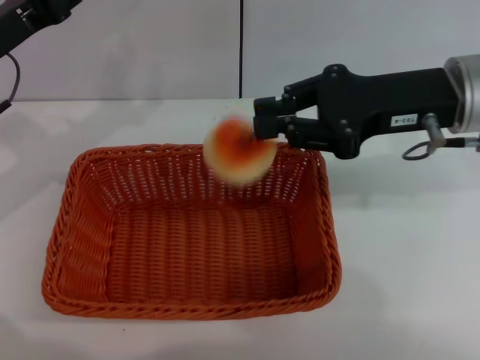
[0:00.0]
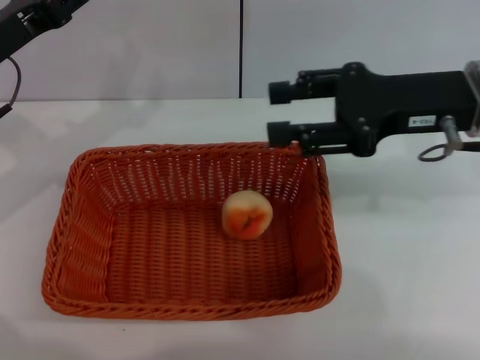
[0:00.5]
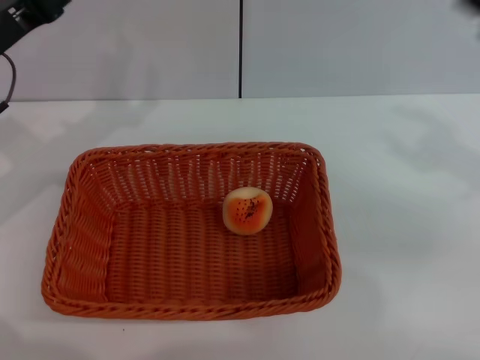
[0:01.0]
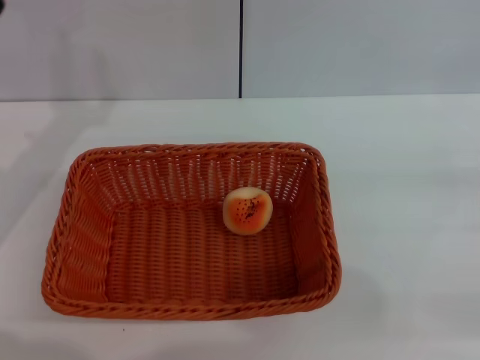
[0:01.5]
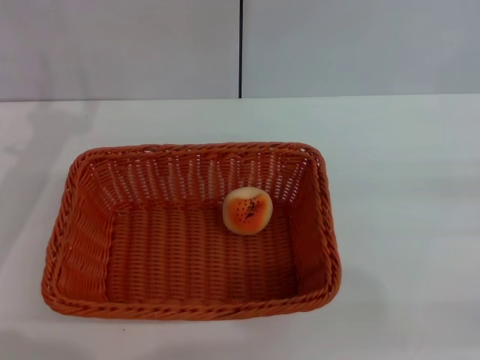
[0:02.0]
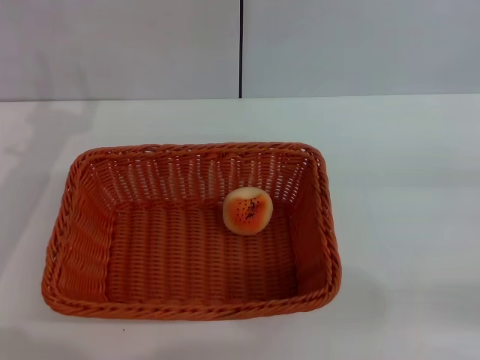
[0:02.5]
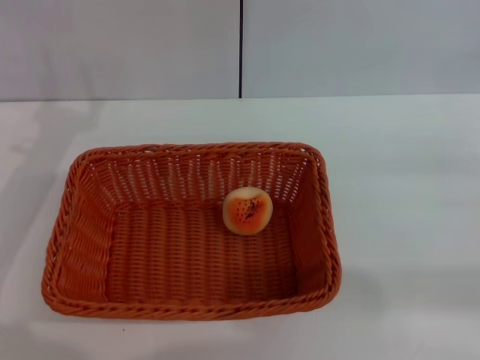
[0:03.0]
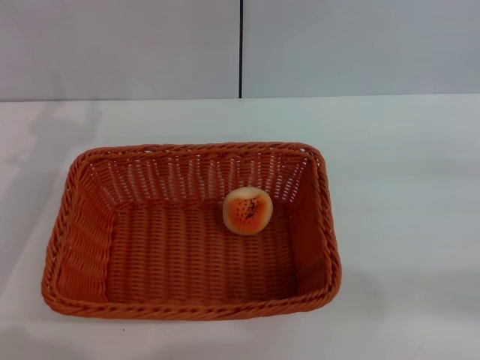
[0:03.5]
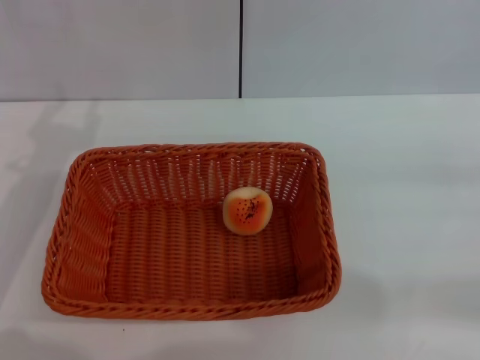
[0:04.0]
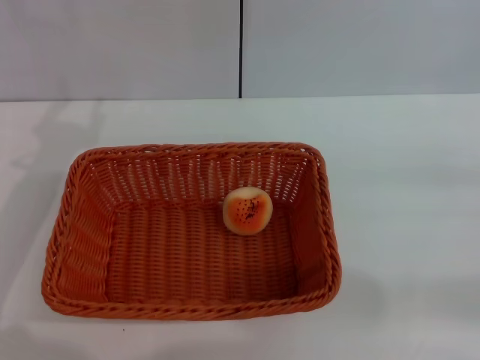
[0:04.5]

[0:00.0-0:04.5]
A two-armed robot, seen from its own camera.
0:00.0 to 0:02.0: The left gripper shifts by roughly 5 cm. The right gripper heads to the right and backward, covering roughly 25 cm, and opens its fingers.

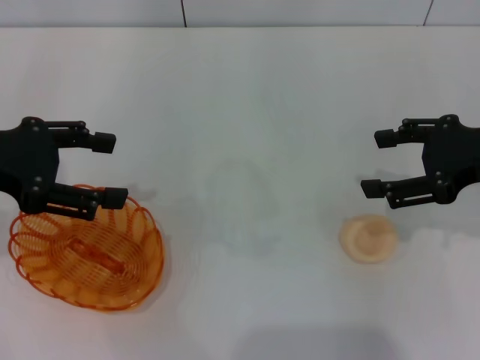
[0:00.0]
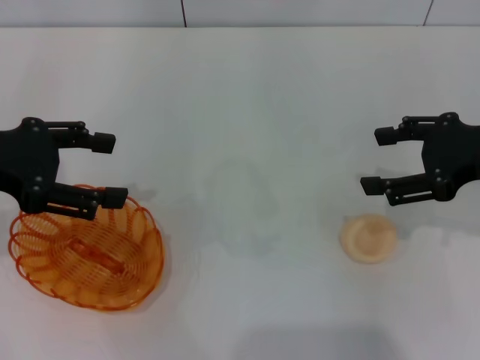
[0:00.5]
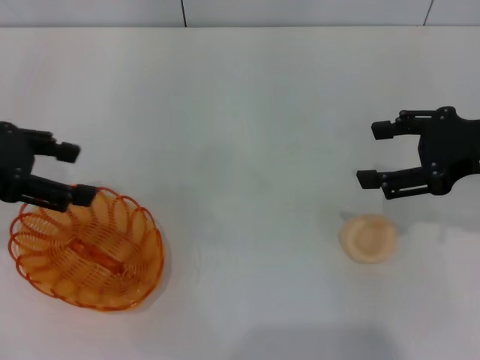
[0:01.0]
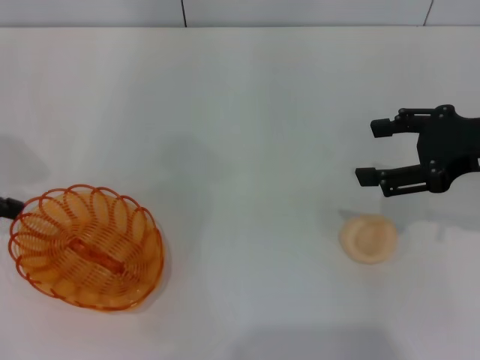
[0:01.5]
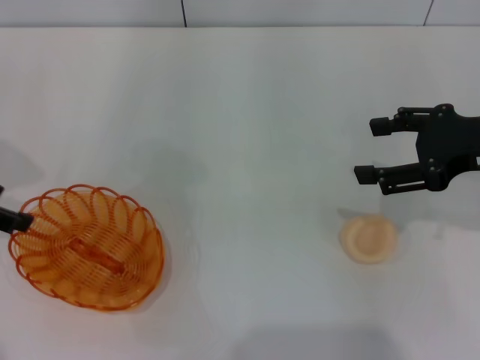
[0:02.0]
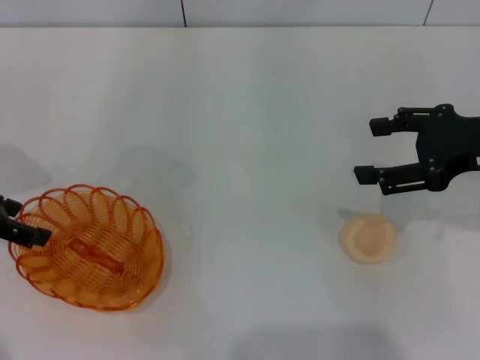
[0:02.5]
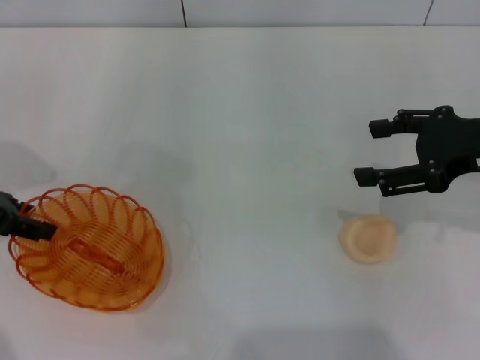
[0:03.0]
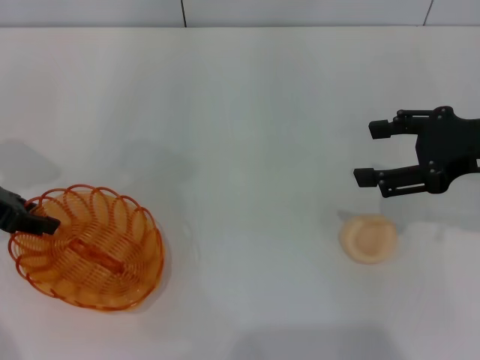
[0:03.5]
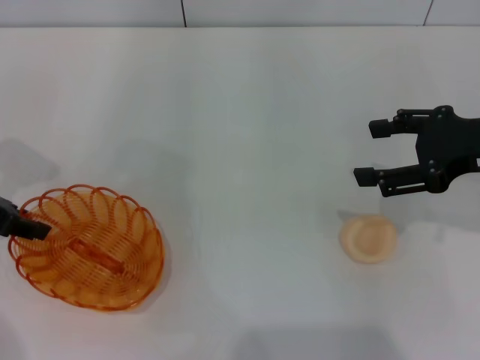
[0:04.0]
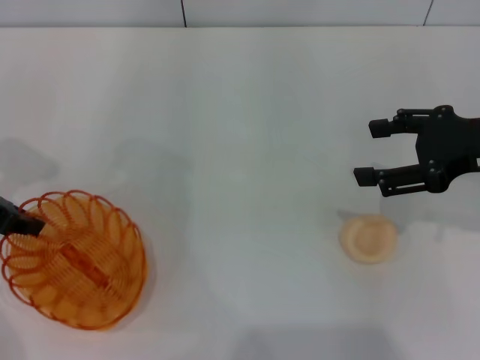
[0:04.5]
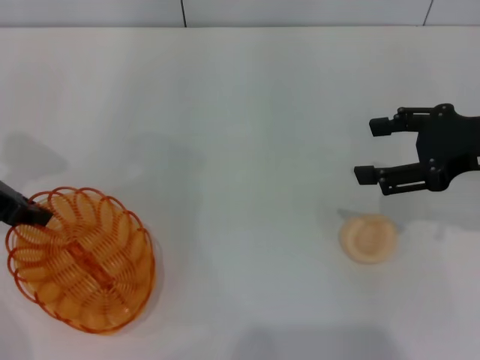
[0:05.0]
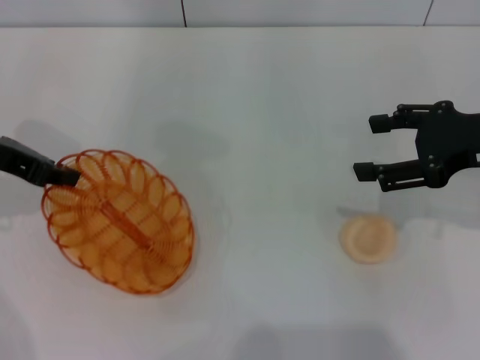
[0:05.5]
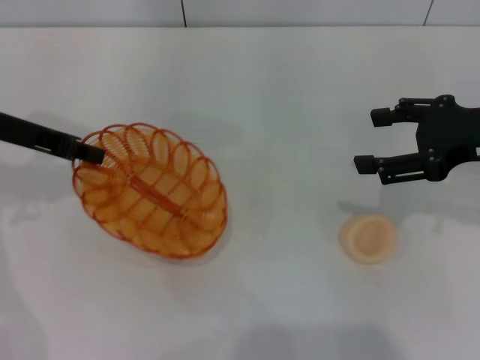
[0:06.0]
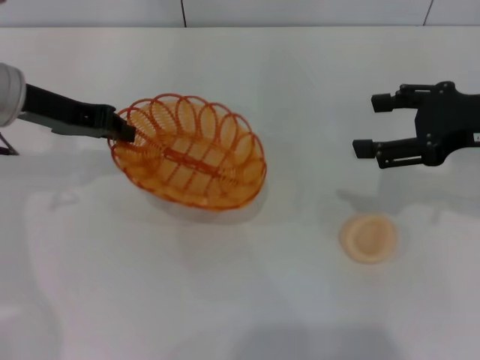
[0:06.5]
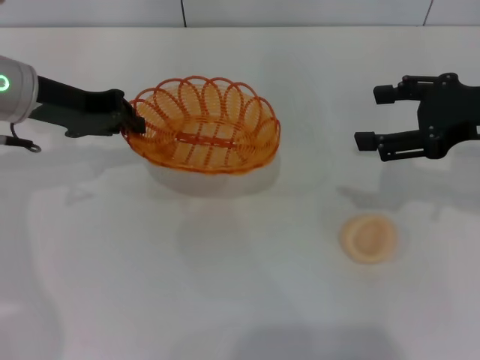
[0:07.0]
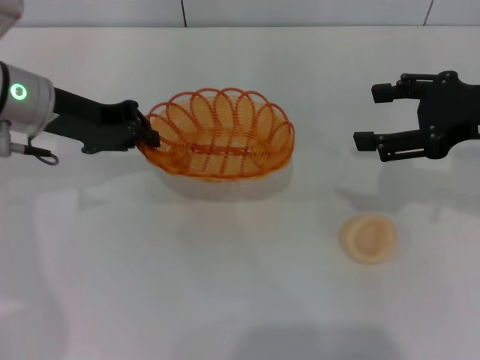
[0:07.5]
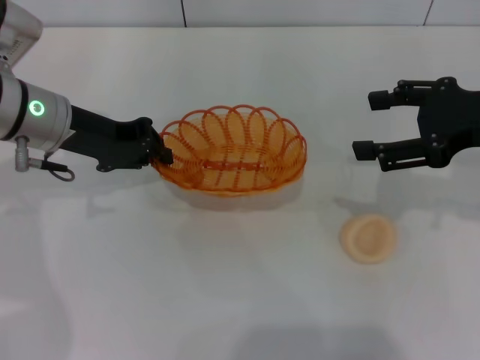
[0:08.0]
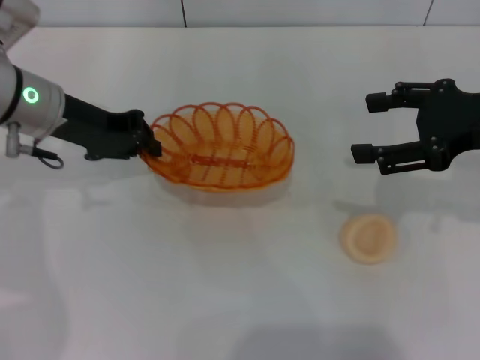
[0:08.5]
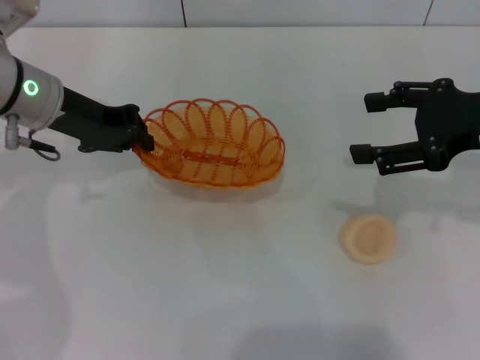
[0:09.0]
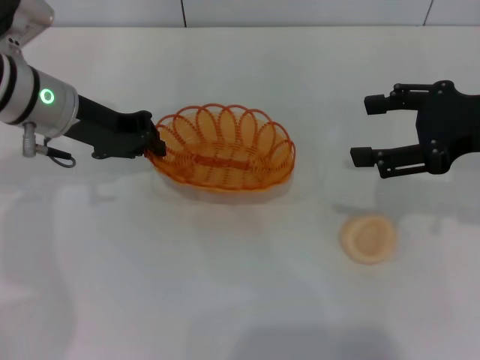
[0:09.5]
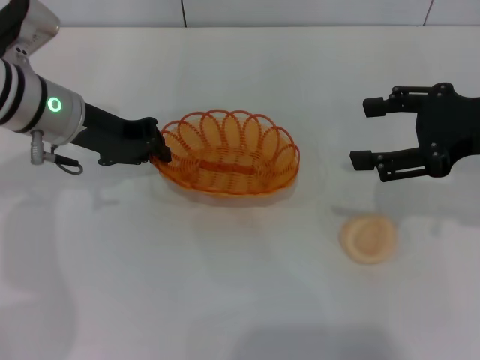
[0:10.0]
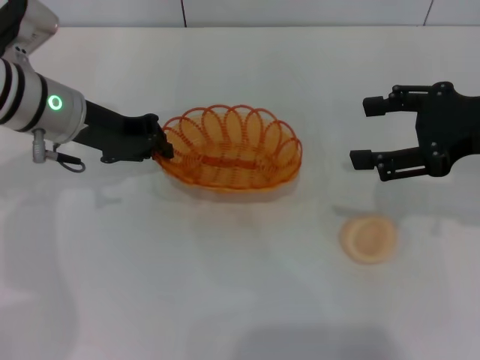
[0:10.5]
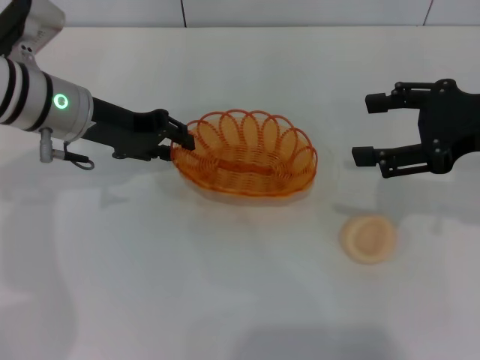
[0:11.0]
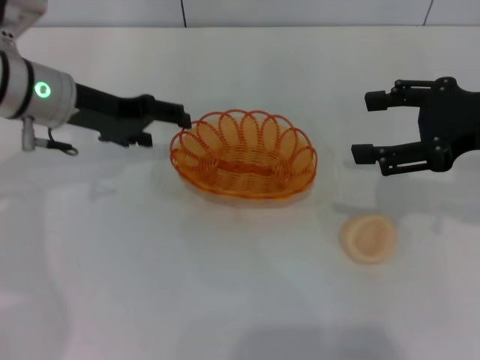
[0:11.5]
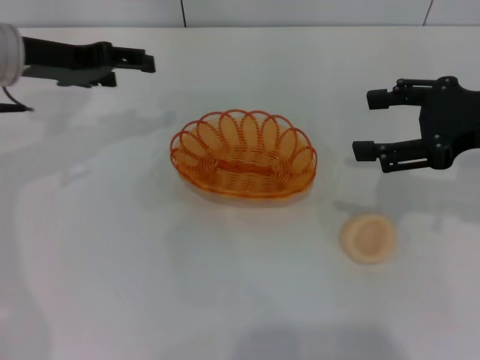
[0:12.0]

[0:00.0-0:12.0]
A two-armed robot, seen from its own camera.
Step, 0:00.0 to 0:05.0: Pick up the basket with the left gripper.
Step, 0:05.5 to 0:11.5: Place the basket in the center of view with the left gripper.
0:00.0 to 0:02.0: The left gripper ends up some 5 cm from where it was.
0:04.0 to 0:06.0: The left gripper shifts by roughly 5 cm, and closes up.
0:06.0 to 0:08.0: The left gripper is displaced to the right by about 5 cm.
0:08.0 to 0:10.0: The grippers make only small movements.
0:10.0 to 0:12.0: The left gripper changes place by some 5 cm, and opens.

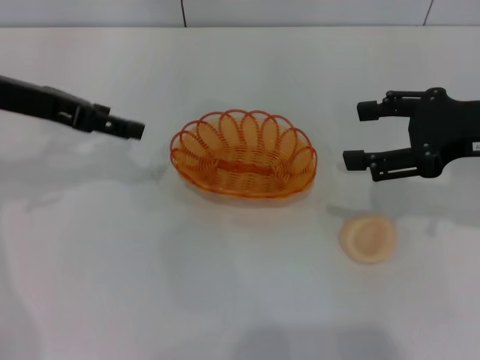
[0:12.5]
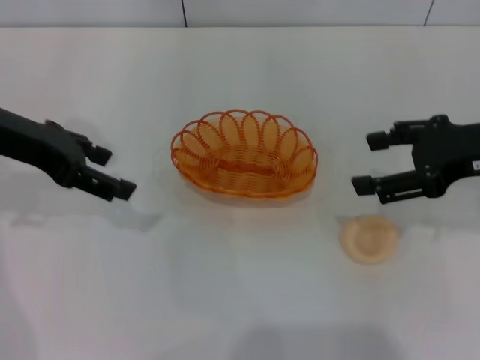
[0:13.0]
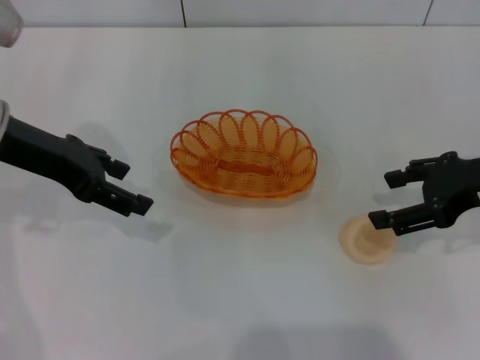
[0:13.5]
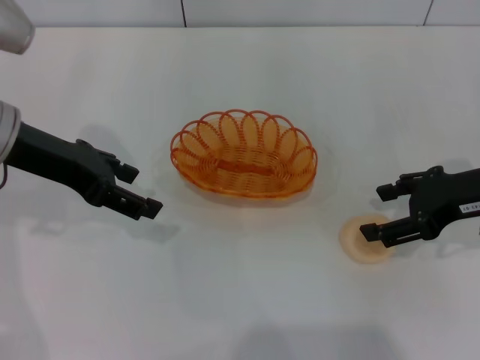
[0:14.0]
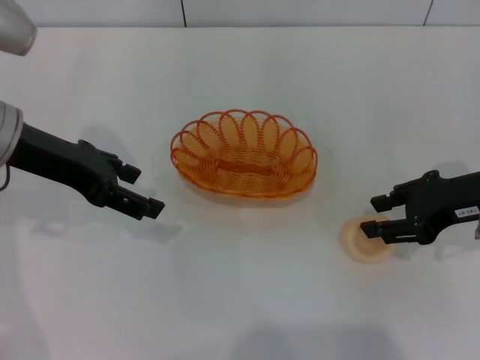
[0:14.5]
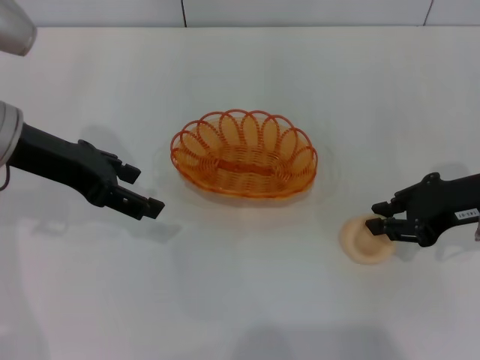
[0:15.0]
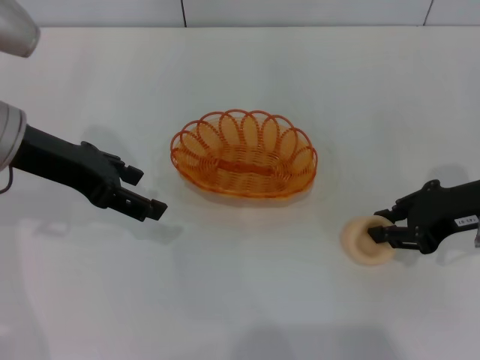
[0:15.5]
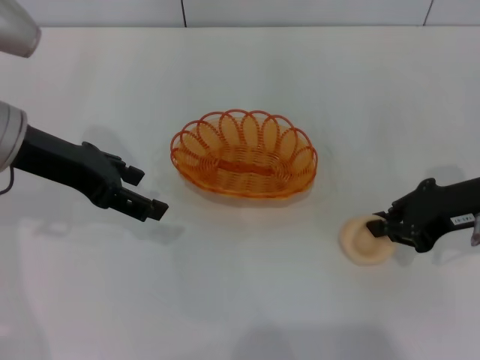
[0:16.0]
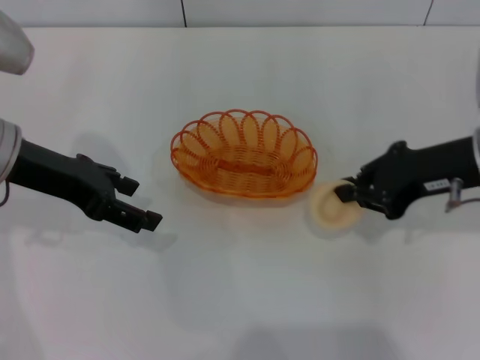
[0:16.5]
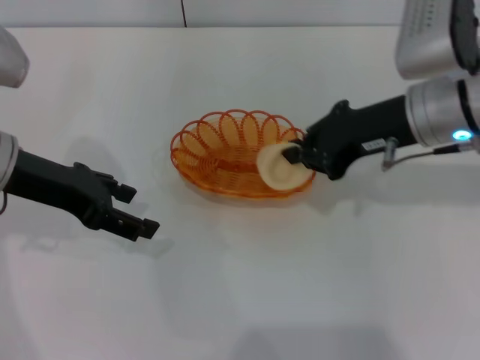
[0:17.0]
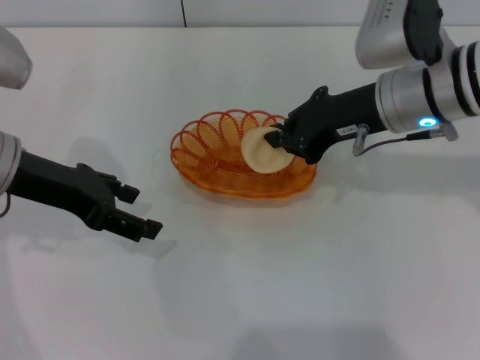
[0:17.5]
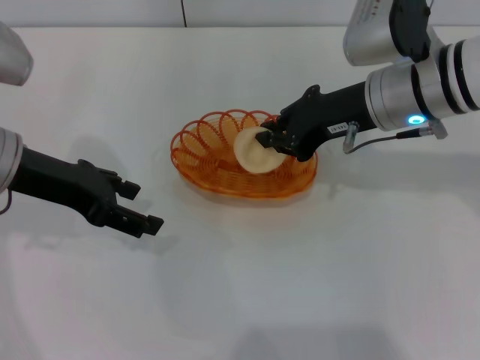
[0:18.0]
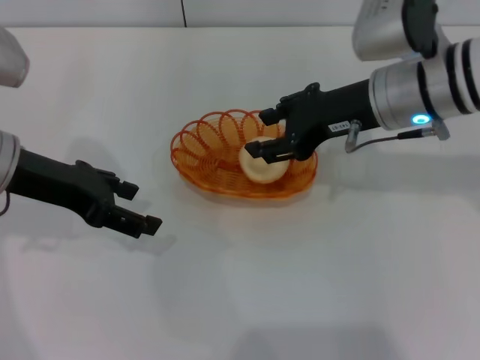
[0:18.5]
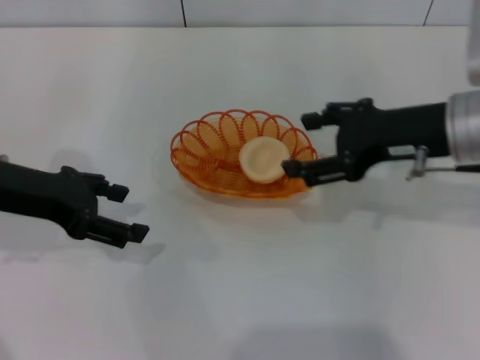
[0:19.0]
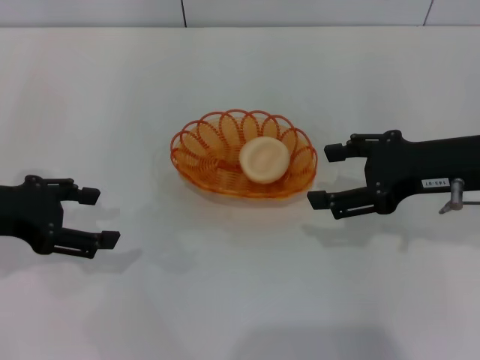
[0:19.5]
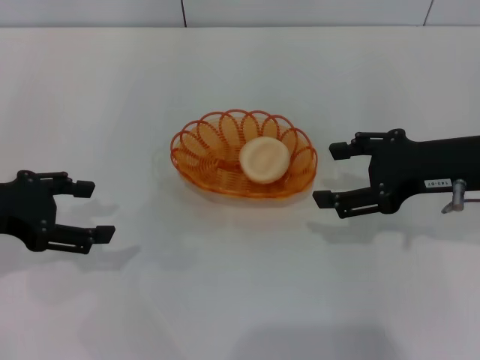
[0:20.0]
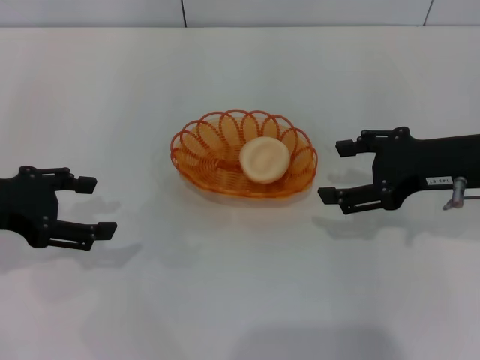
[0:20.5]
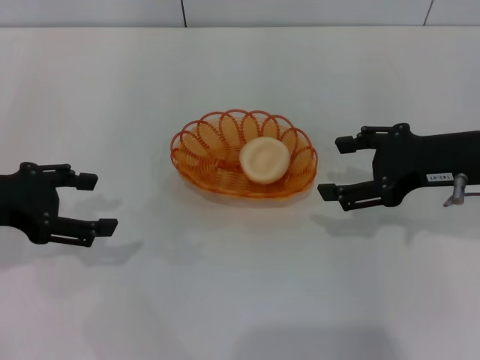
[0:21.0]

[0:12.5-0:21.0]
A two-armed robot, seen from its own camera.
Step, 0:12.5 to 0:16.5: Pick up the egg yolk pastry with the right gripper.
Step, 0:17.0 to 0:18.5: Place the egg yolk pastry into the basket with the right gripper.
0:12.5 to 0:14.5: The right gripper travels downward by roughly 5 cm.
0:14.5 to 0:16.5: The right gripper closes its fingers.
0:16.5 to 0:19.0: The right gripper moves about 10 cm to the left and comes back, and opens.
0:19.0 to 0:21.0: The grippers move only a little.
